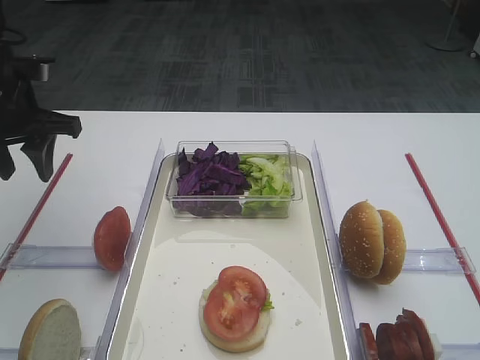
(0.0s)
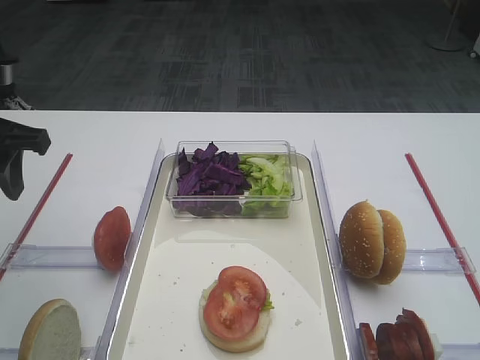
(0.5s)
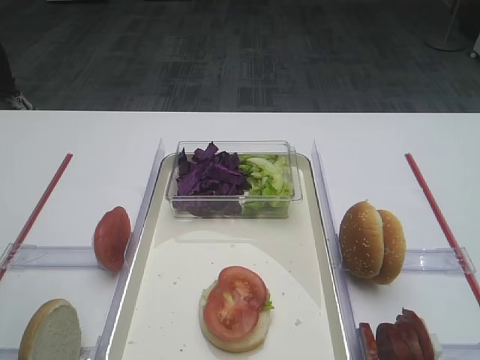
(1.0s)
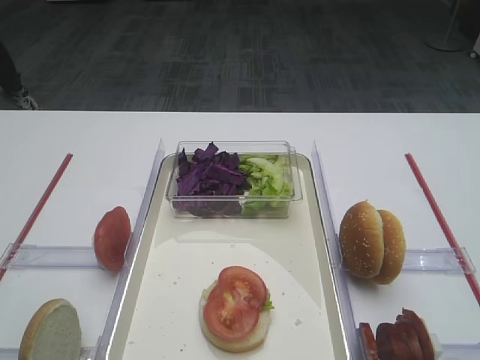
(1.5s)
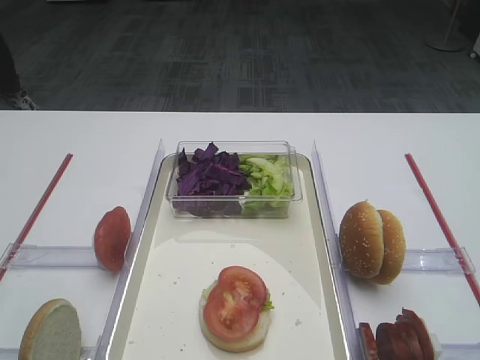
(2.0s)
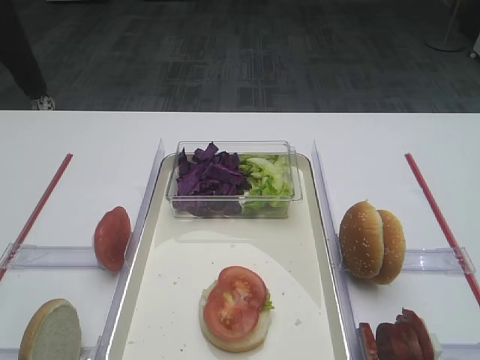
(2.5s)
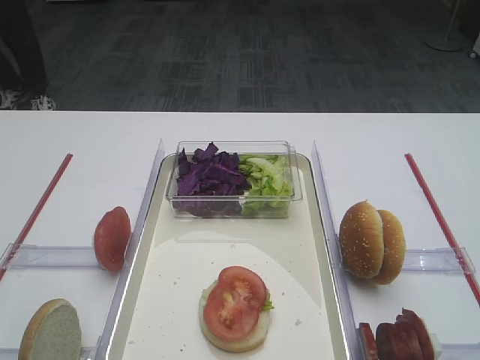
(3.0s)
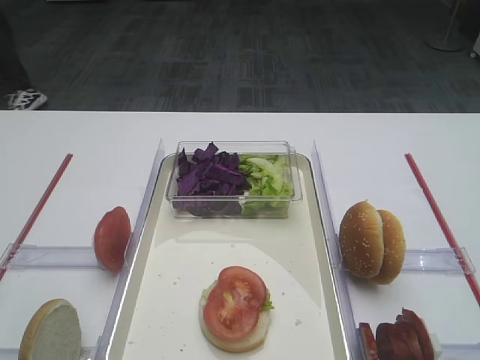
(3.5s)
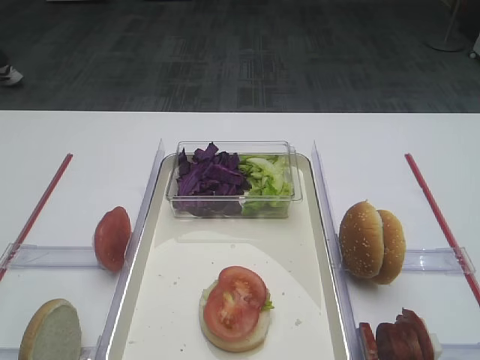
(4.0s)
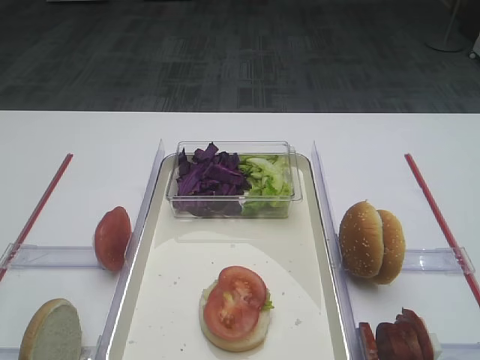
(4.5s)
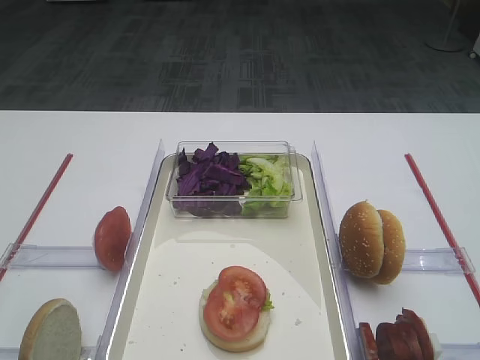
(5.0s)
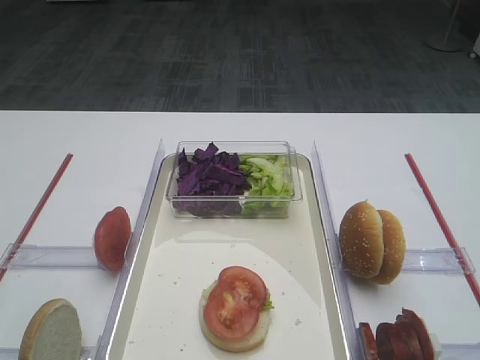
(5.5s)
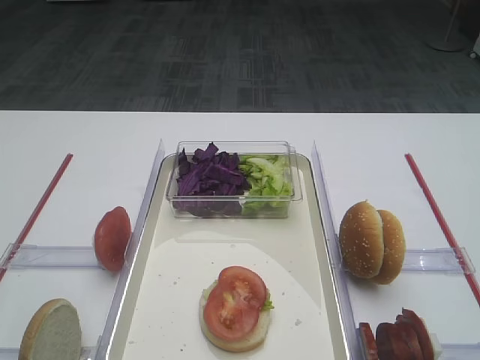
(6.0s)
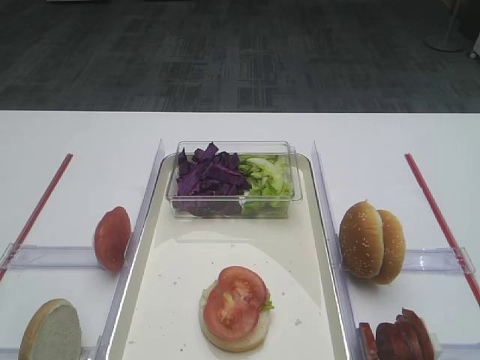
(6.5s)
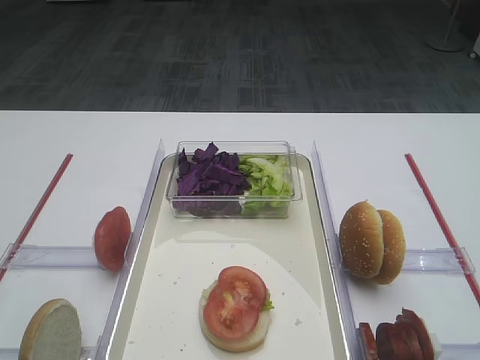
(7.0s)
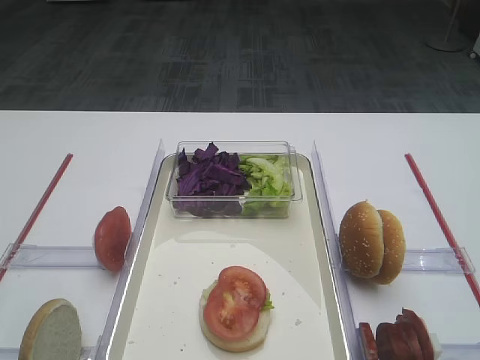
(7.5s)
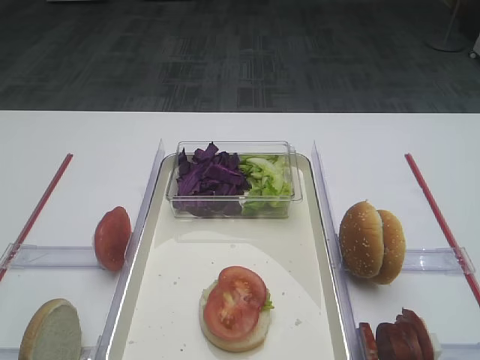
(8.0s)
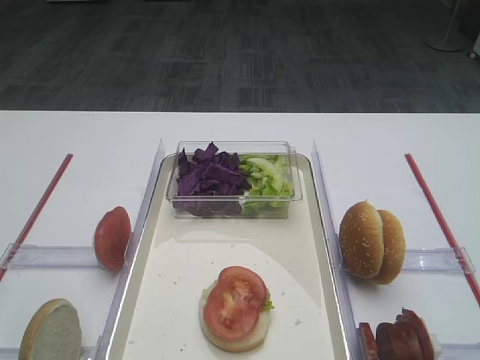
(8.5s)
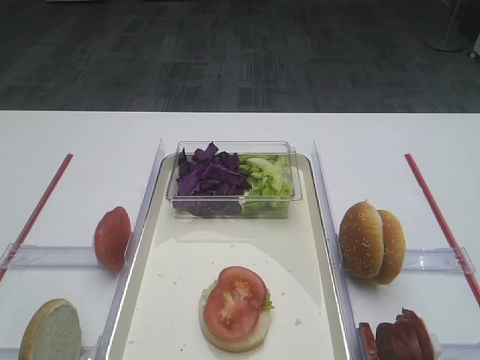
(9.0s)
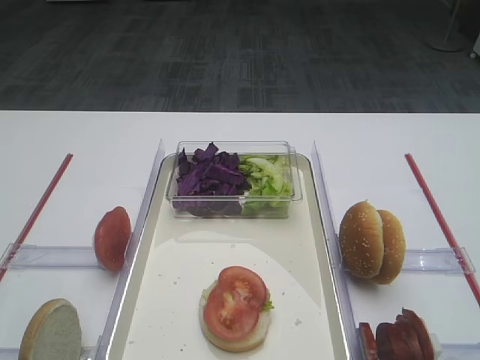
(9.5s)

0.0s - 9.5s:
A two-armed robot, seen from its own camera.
0.0s - 2.0s: The left gripper shifts about 30 cm backward.
4.0s - 9.5s: Neither gripper changes place.

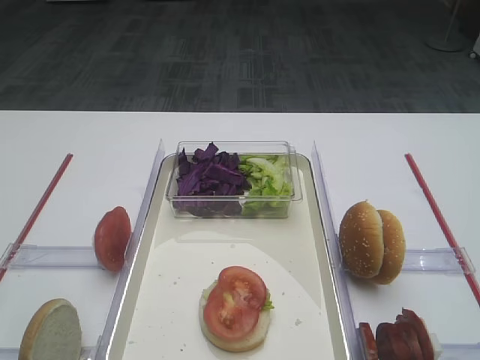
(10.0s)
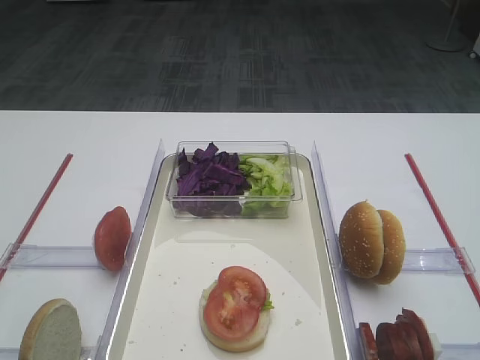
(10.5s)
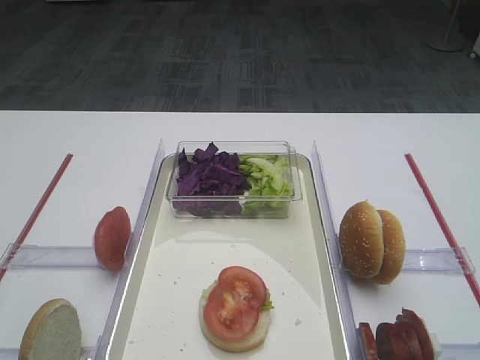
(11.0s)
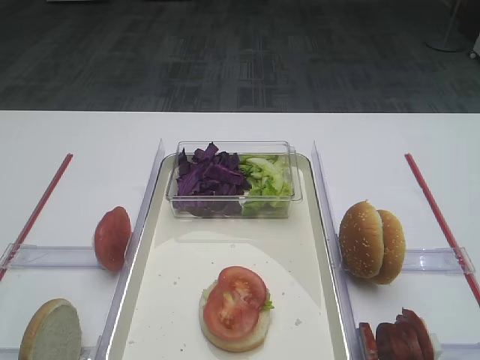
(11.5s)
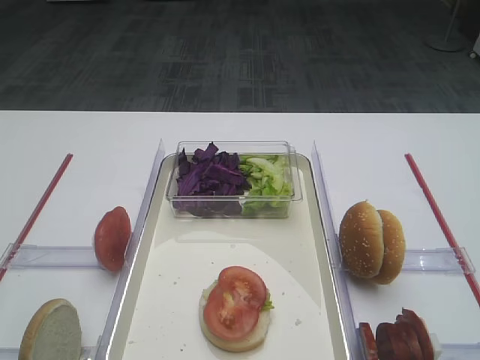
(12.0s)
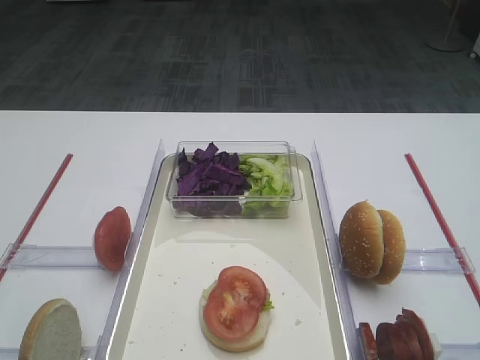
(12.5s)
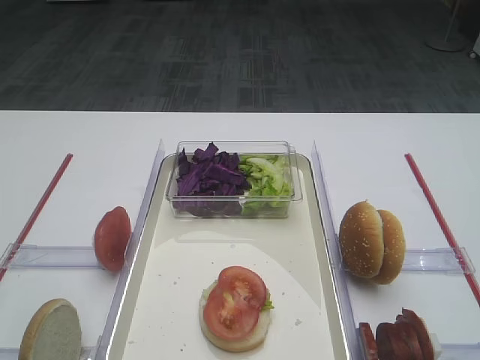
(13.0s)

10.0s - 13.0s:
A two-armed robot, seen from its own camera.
10.0s - 13.0s: The two grippers keep their place.

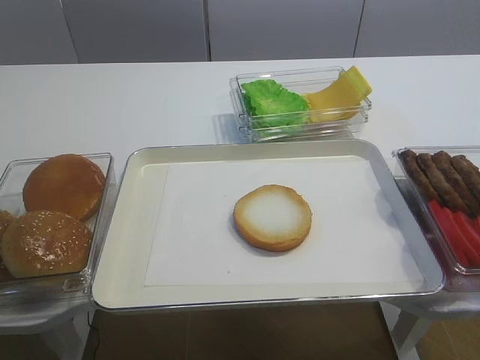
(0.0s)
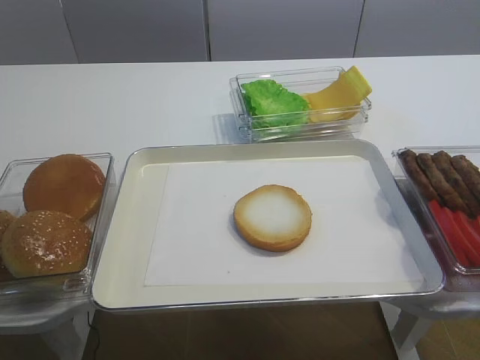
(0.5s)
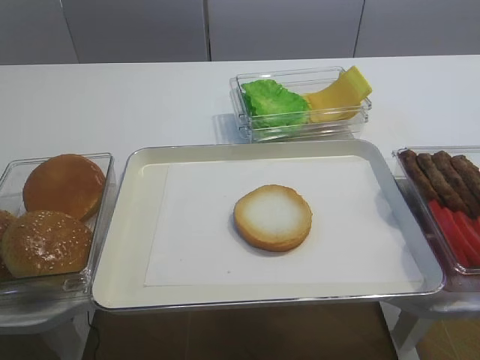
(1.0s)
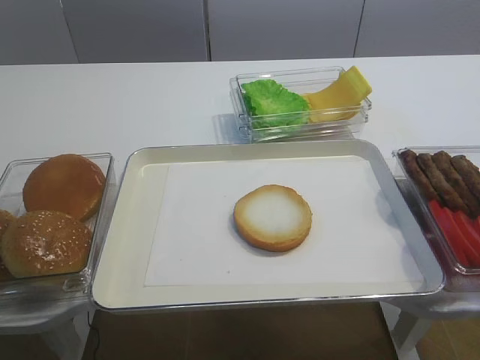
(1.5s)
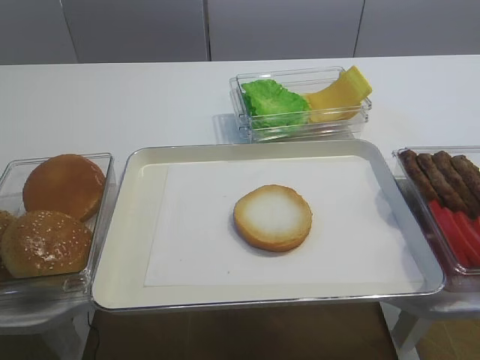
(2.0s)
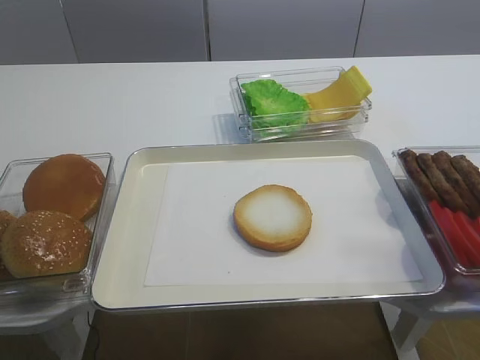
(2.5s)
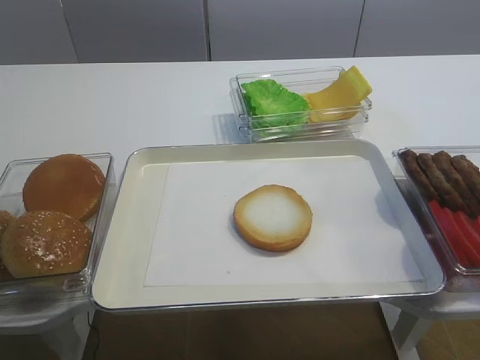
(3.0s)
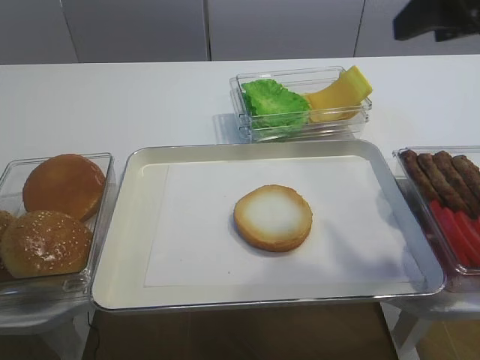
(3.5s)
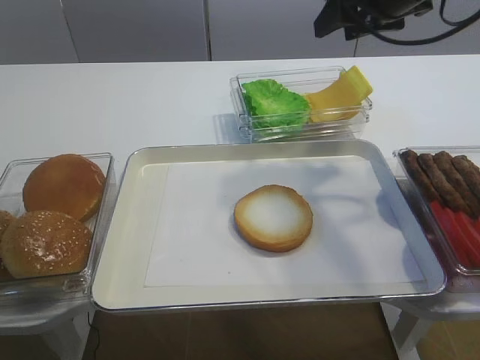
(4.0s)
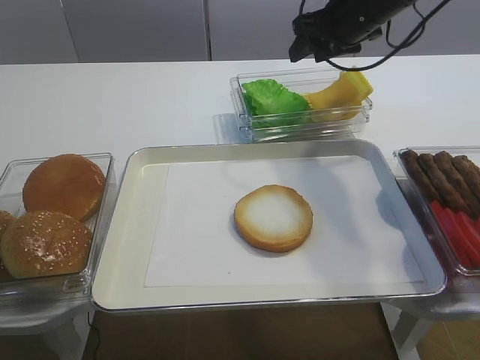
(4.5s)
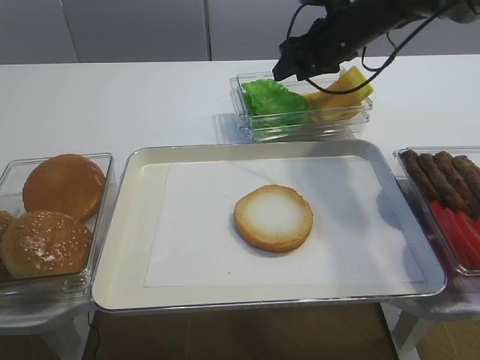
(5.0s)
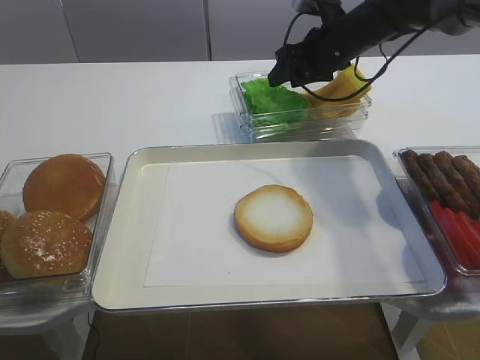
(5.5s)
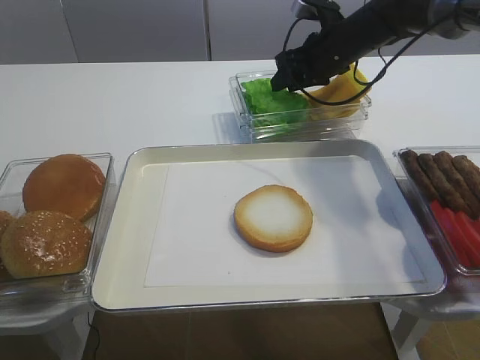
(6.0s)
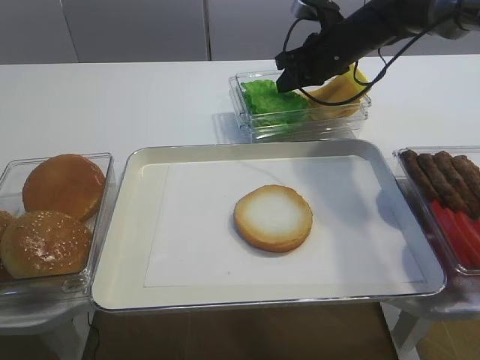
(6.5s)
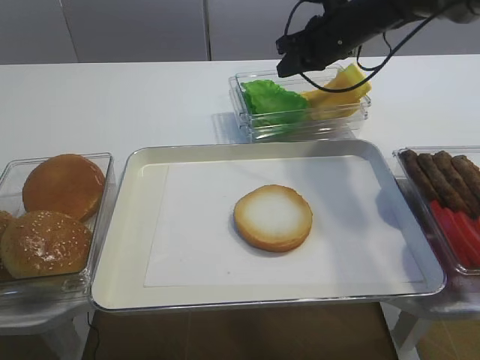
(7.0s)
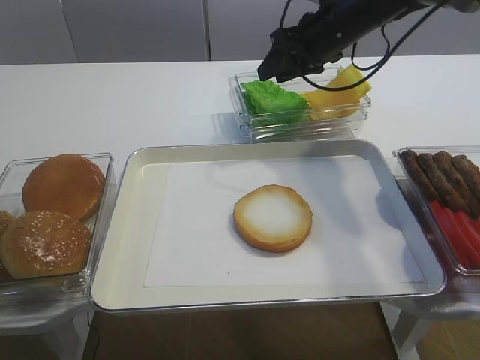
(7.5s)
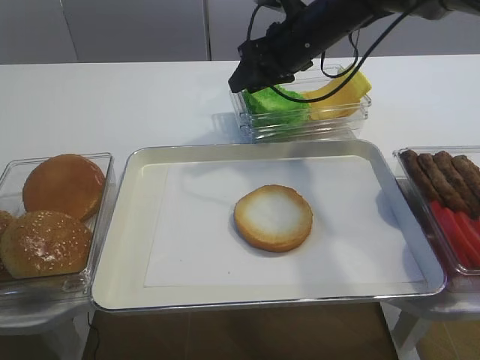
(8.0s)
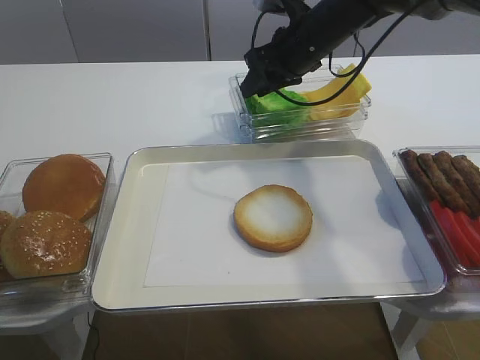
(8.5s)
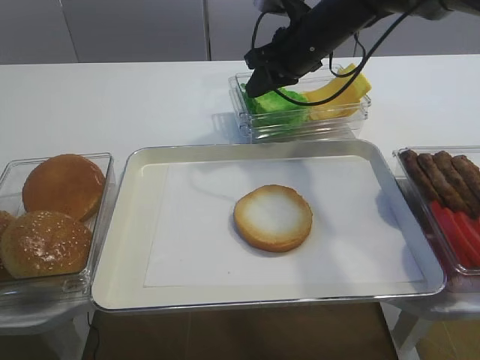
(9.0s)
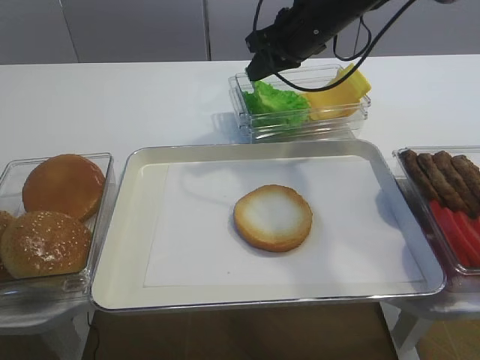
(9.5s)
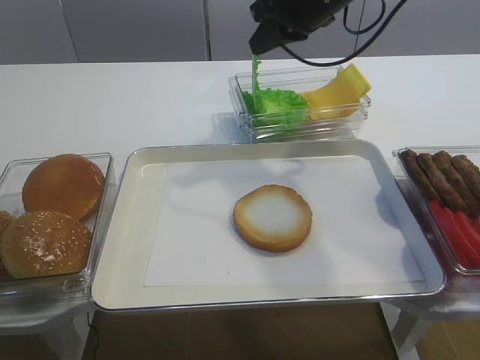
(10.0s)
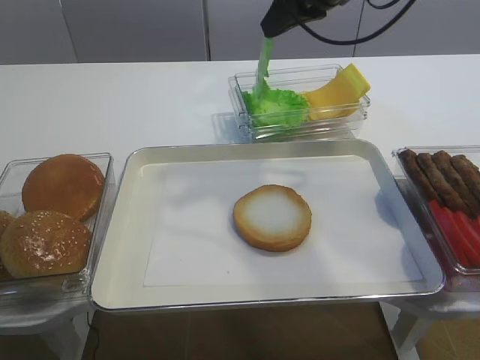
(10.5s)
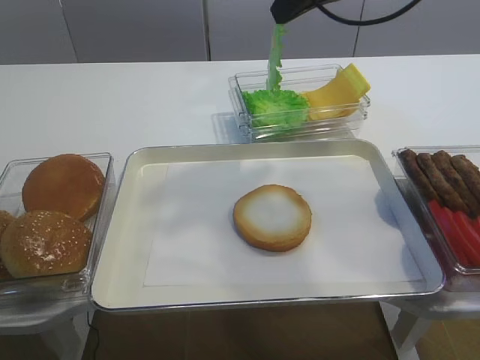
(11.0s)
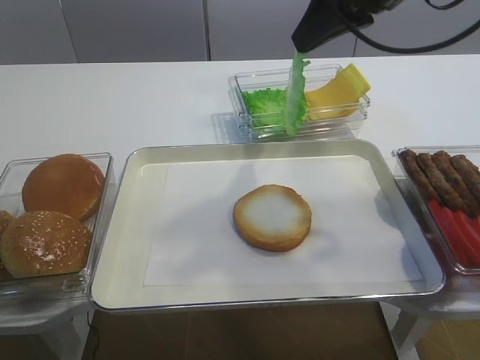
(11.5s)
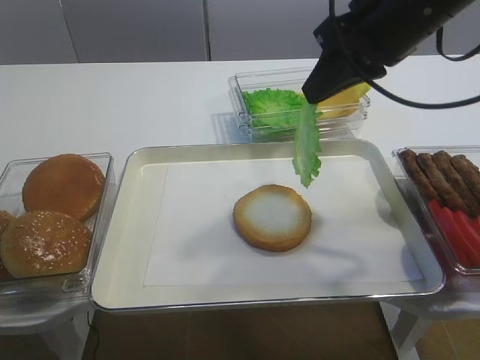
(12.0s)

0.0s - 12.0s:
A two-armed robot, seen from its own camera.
Step, 0.0s - 9.5s: Pick up the lettuce leaf with the right gripper.
2.0s - 4.0s: The right gripper is displaced forward by roughly 40 cm.
4.0s - 6.0s: The right gripper heads downward and forward, covering some 15 cm.
6.0s - 8.0s: The right gripper heads to the left, covering some 5 cm, and closes, then reopens.
8.0s - 10.0s: The right gripper heads upward, covering approximately 5 cm, and closes.
10.0s - 12.0s: The right gripper shifts roughly 15 cm backward.

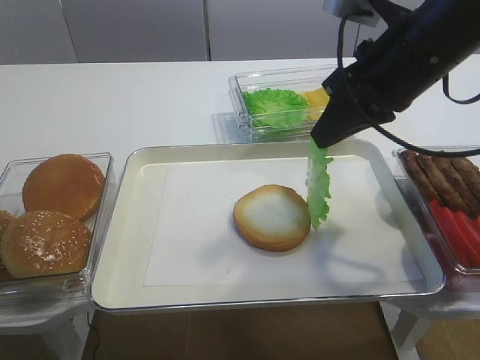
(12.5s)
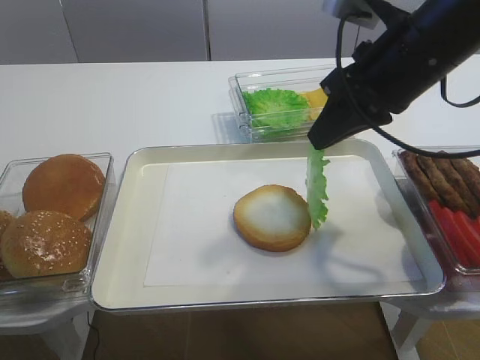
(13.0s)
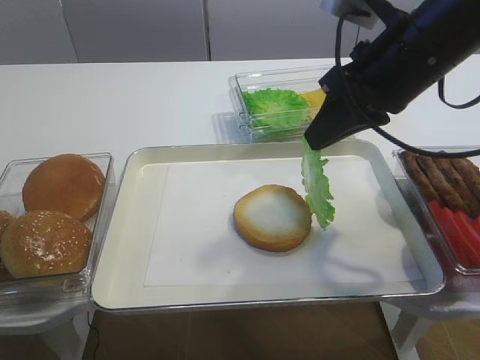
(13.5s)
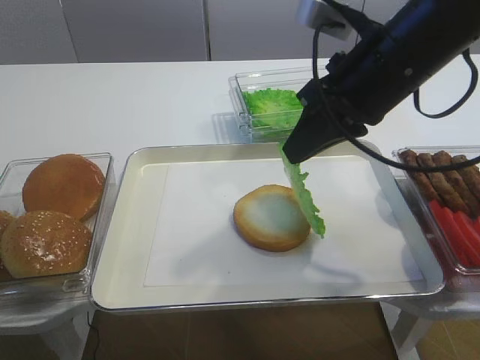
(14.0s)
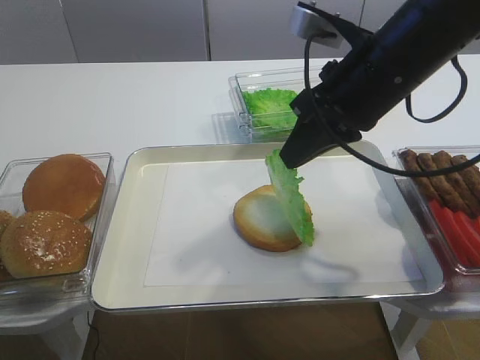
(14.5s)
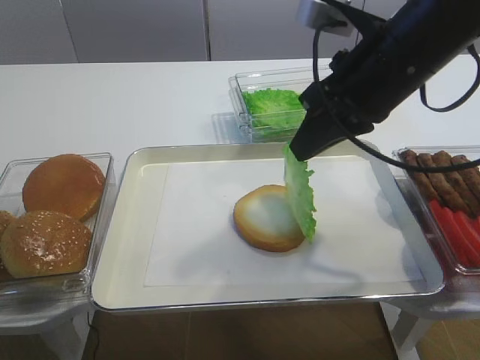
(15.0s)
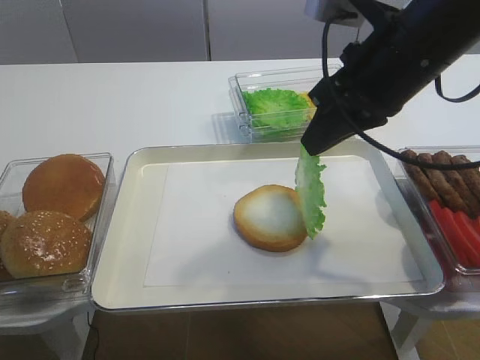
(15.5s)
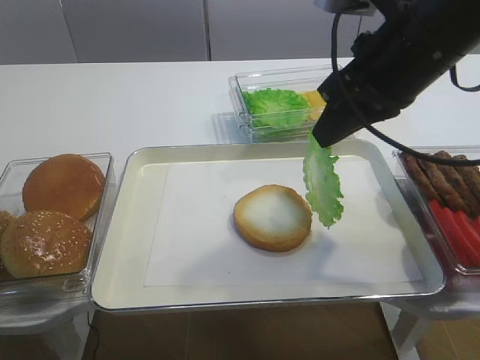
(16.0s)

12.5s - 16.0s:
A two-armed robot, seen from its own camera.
12.5s - 16.0s: The grippers move only a little.
